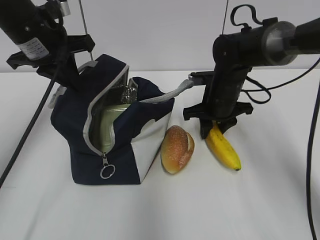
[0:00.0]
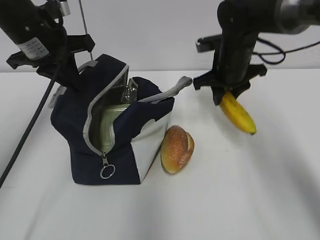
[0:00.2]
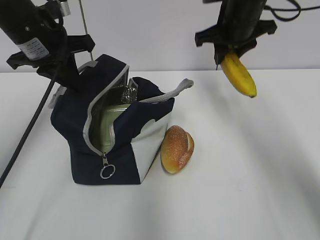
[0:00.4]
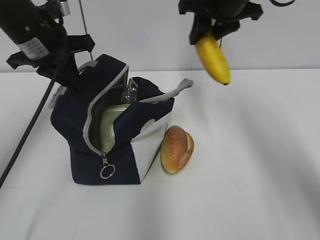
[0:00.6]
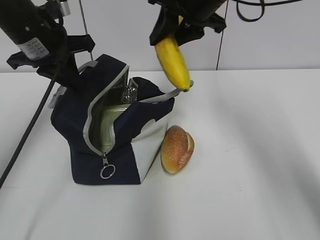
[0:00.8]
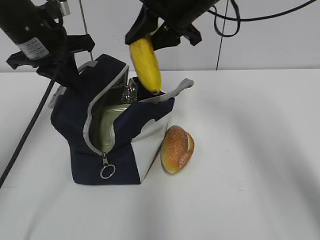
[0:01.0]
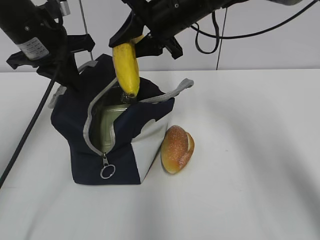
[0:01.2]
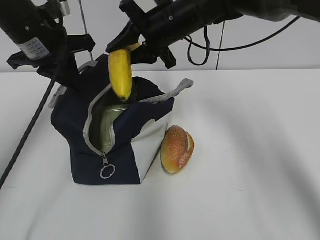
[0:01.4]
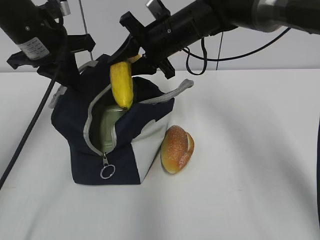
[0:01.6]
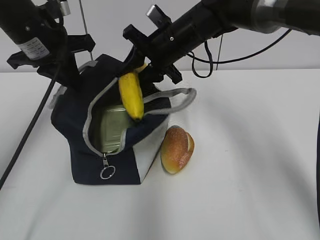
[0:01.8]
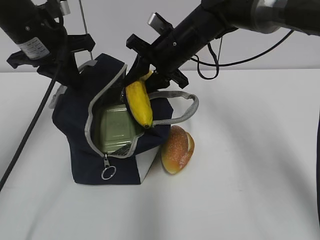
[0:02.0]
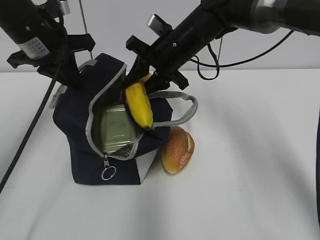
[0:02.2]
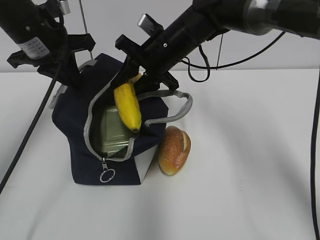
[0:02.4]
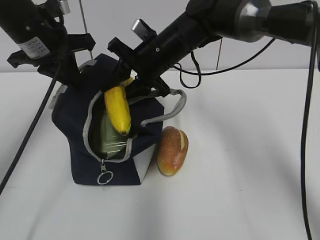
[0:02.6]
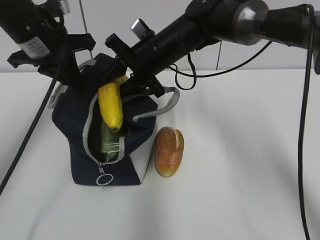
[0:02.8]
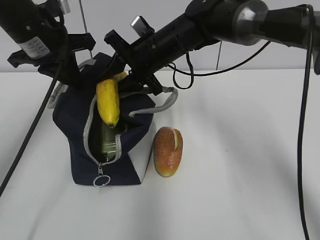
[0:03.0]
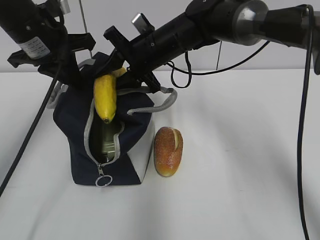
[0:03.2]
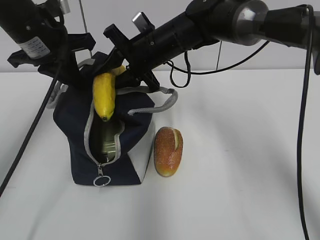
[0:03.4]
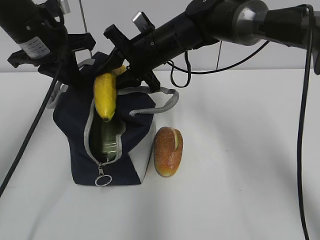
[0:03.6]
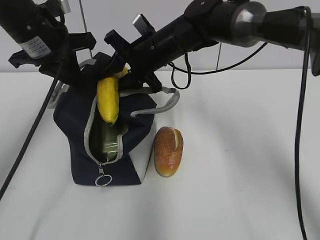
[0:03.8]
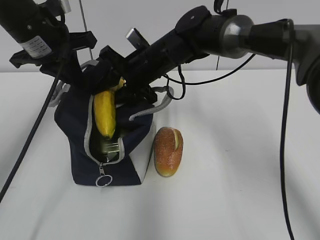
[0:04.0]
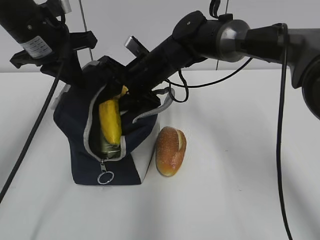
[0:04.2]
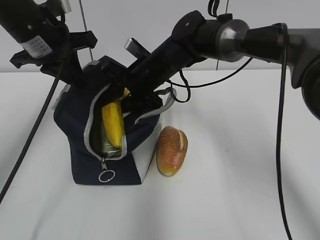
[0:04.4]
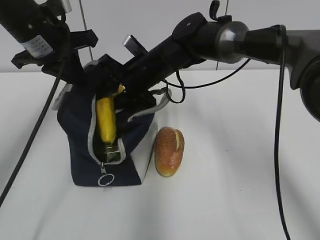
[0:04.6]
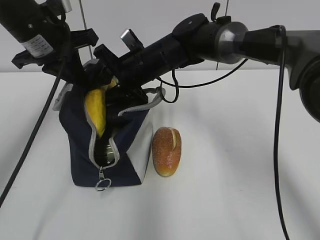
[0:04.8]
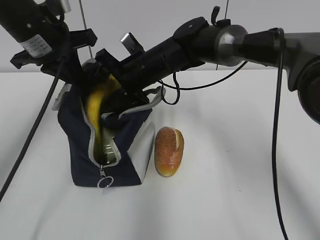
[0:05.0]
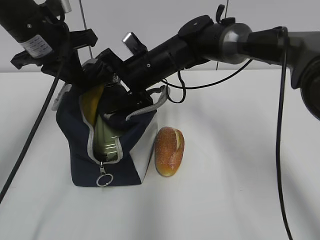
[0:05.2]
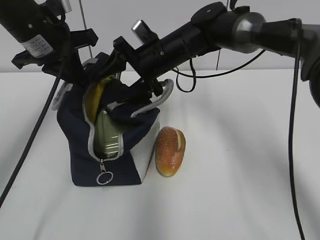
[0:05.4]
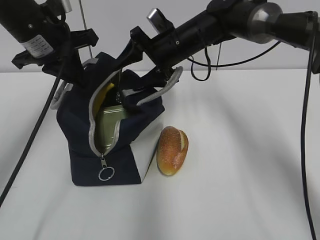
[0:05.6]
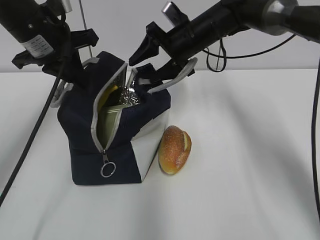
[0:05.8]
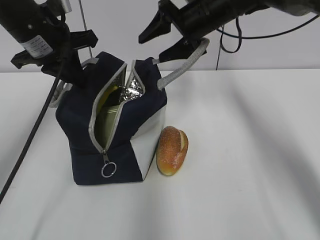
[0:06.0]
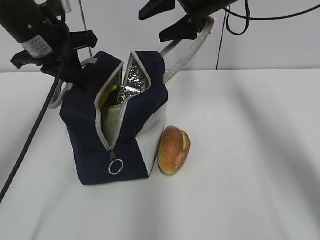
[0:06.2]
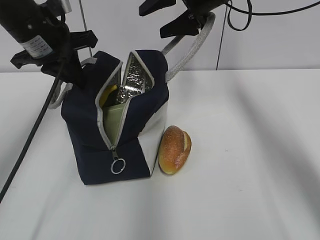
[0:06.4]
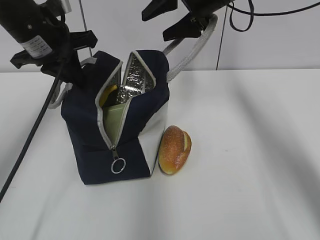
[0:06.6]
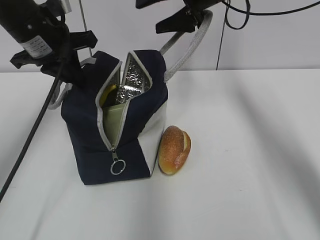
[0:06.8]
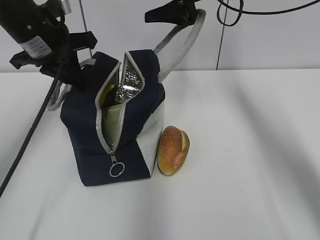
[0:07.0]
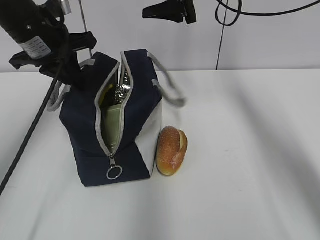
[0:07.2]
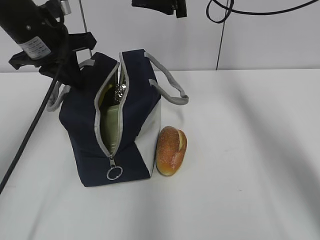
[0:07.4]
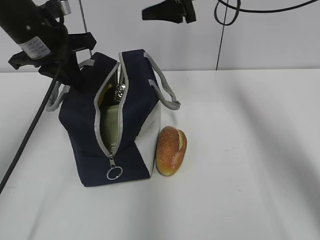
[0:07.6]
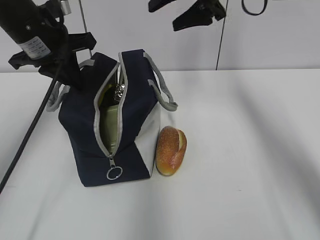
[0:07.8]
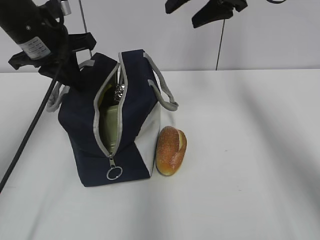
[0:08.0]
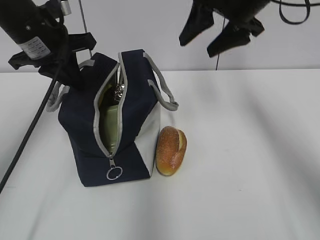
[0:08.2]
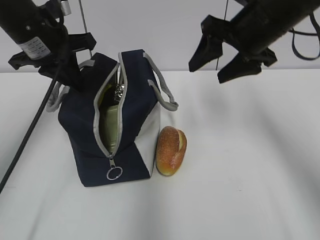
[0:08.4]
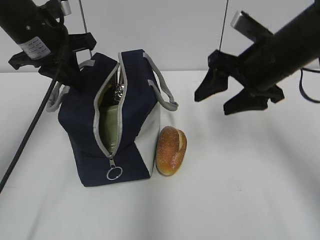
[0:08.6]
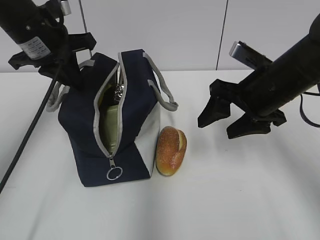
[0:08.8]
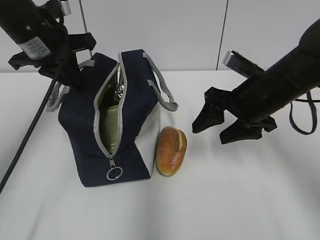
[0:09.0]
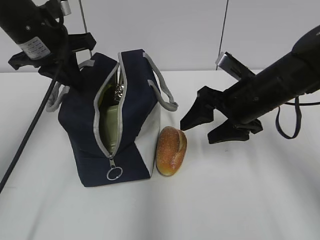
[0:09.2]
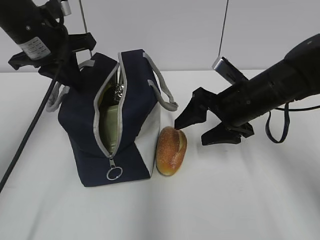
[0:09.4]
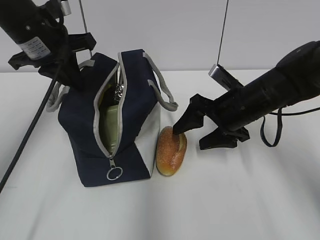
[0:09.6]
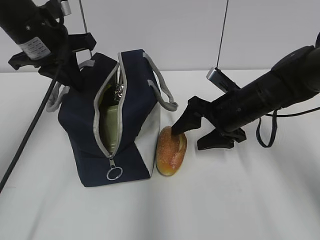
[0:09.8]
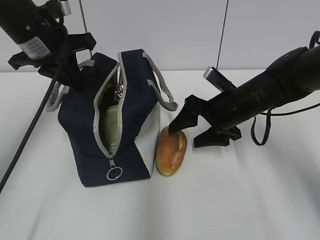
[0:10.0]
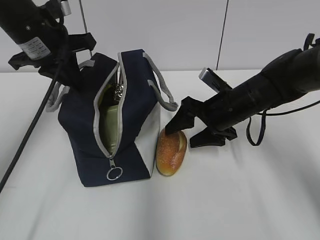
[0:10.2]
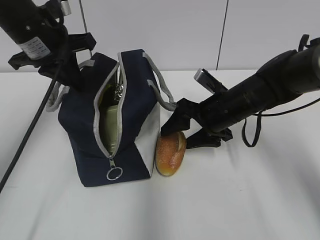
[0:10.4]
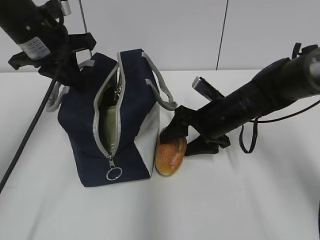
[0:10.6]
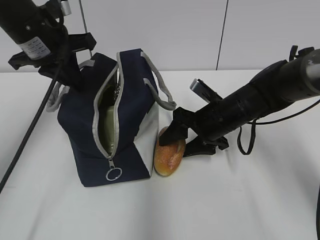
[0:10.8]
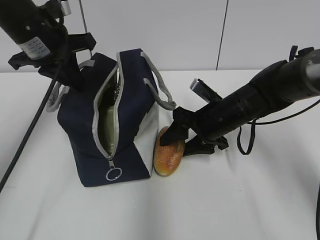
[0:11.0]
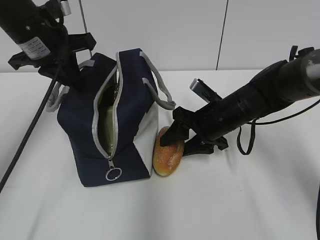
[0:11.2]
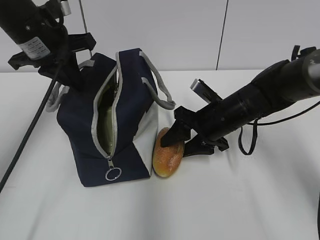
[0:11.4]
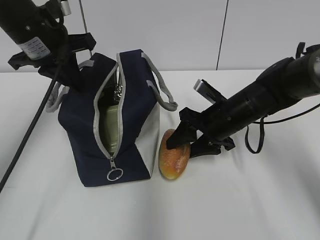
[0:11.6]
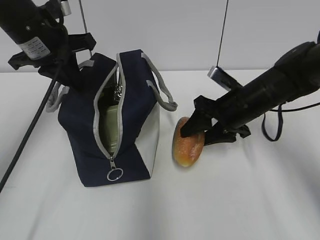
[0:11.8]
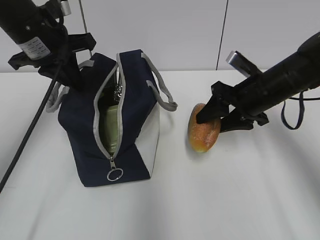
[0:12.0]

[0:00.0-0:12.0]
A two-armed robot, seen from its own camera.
Step, 0:00.0 to 0:05.0: Place it into the bag with your right hand.
Step, 0:05.4 to 0:11.2: Grab the bread with your right hand.
0:00.0 to 0:01.6: The right gripper is displaced upward and to the left by about 15 cm.
0:04.4 to 0:06.0: The right gripper goes approximately 15 cm to the right and upward, and opens.
0:06.0 to 0:07.6: The right gripper heads upward, covering roughly 5 cm.
0:07.6 to 0:09.0: The right gripper shifts roughly 20 cm backward, downward and to the right.
0:09.0 to 0:10.4: The right gripper heads downward, covering about 5 cm.
0:10.4 to 0:12.0: The right gripper shifts approximately 5 cm to the right.

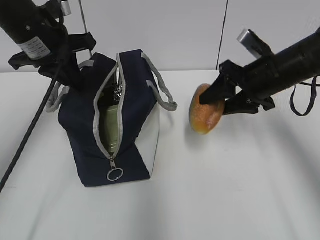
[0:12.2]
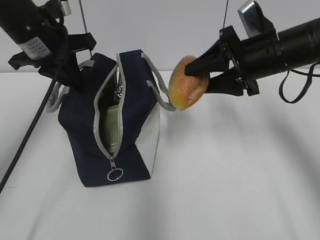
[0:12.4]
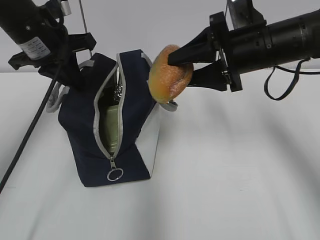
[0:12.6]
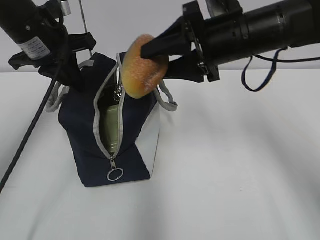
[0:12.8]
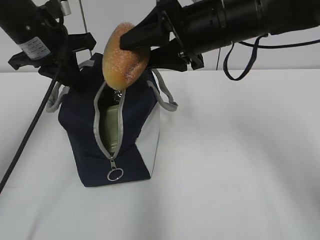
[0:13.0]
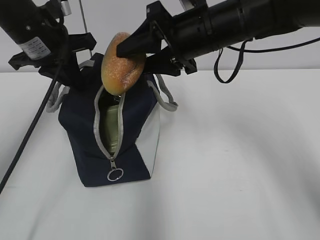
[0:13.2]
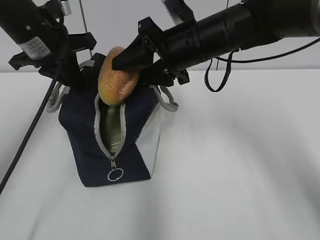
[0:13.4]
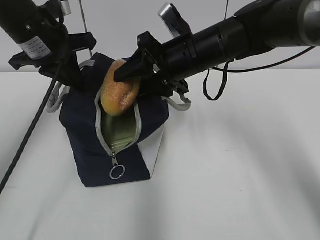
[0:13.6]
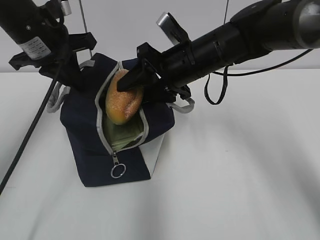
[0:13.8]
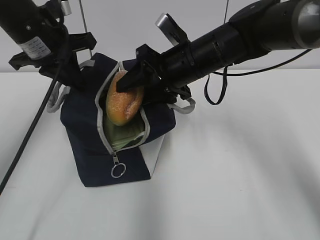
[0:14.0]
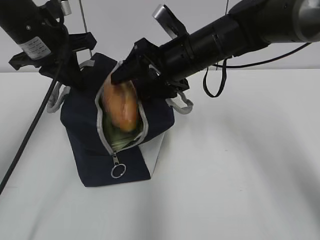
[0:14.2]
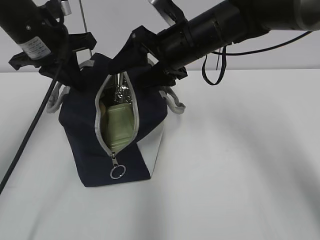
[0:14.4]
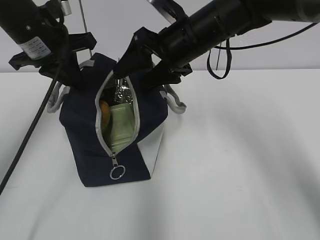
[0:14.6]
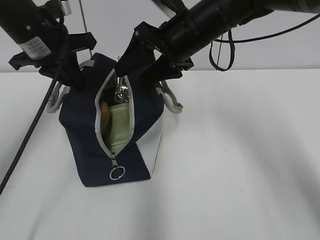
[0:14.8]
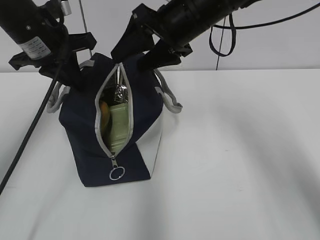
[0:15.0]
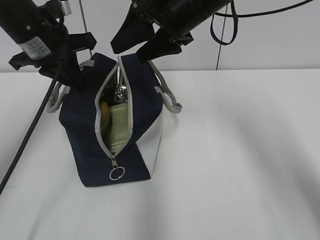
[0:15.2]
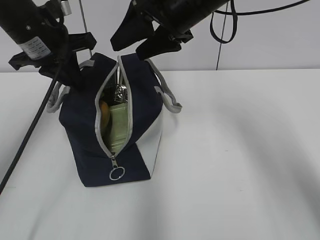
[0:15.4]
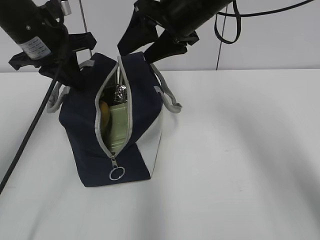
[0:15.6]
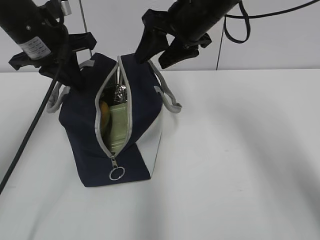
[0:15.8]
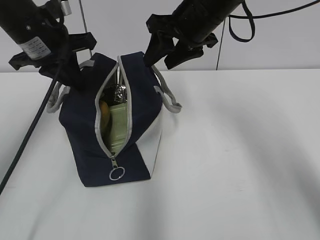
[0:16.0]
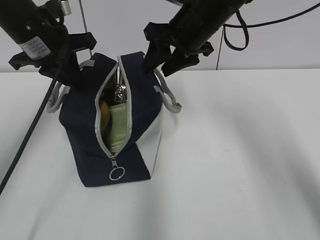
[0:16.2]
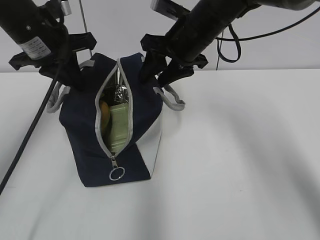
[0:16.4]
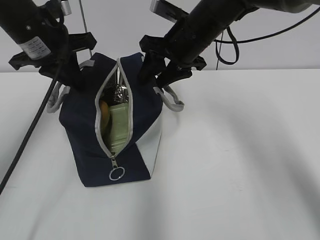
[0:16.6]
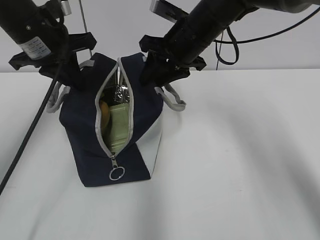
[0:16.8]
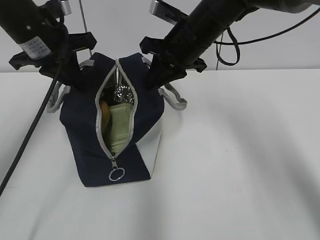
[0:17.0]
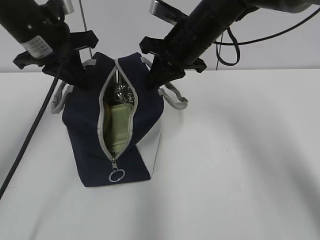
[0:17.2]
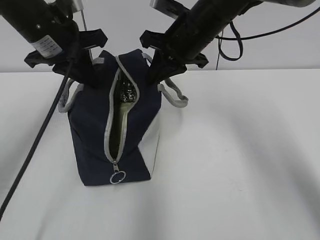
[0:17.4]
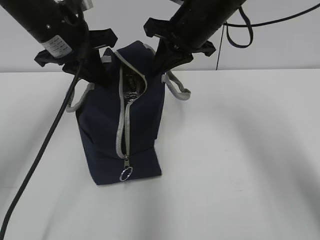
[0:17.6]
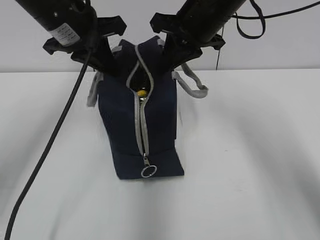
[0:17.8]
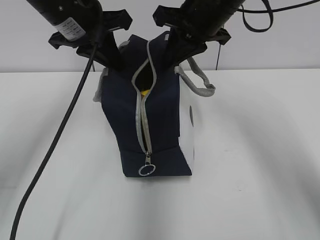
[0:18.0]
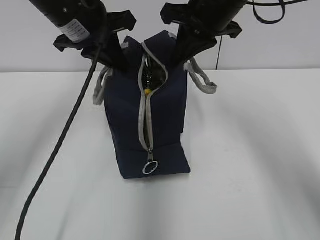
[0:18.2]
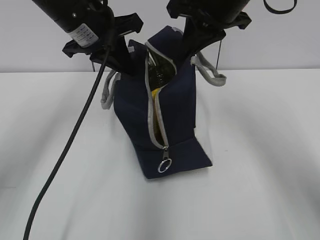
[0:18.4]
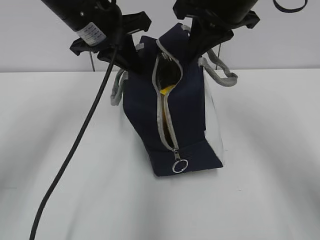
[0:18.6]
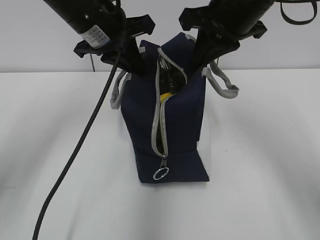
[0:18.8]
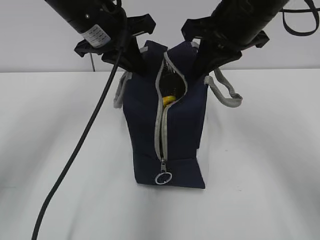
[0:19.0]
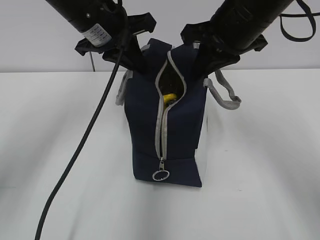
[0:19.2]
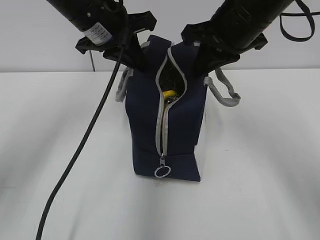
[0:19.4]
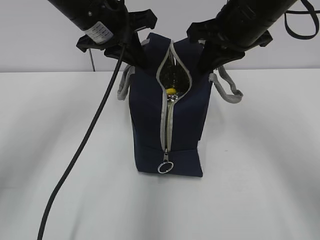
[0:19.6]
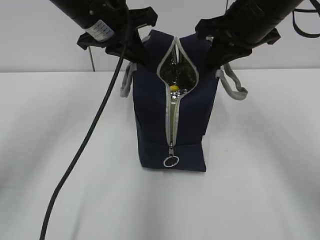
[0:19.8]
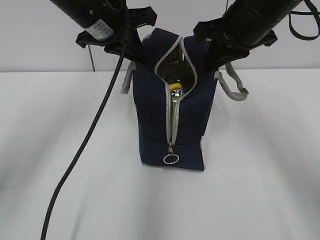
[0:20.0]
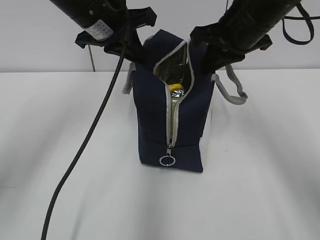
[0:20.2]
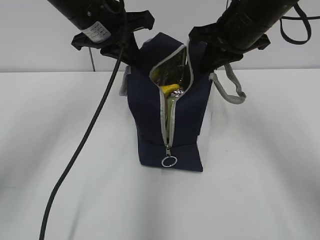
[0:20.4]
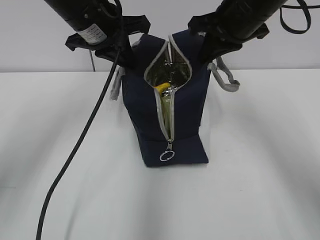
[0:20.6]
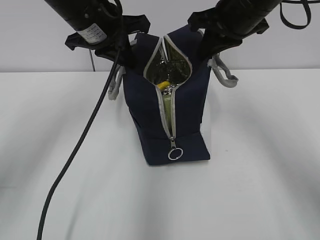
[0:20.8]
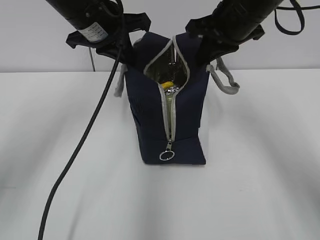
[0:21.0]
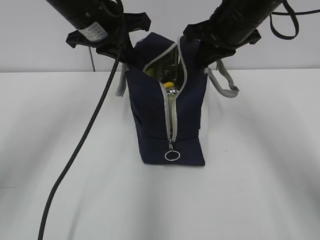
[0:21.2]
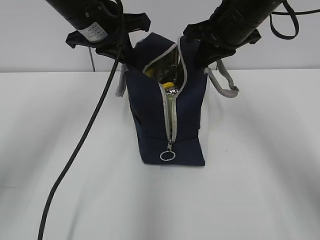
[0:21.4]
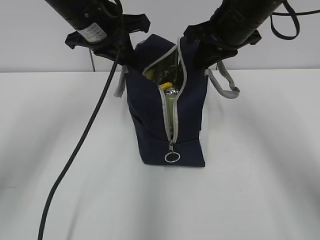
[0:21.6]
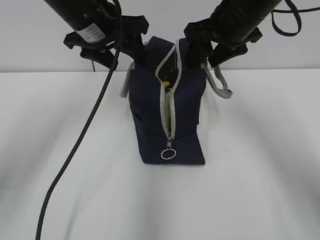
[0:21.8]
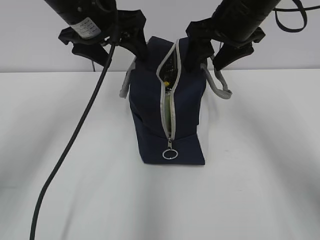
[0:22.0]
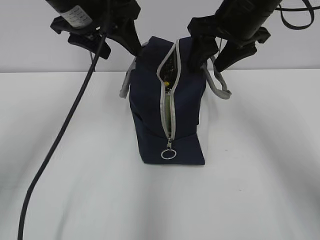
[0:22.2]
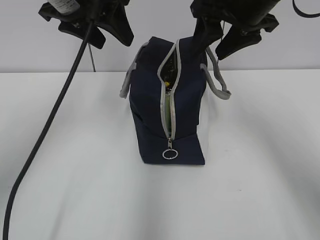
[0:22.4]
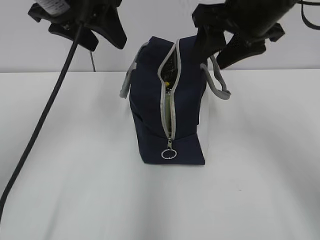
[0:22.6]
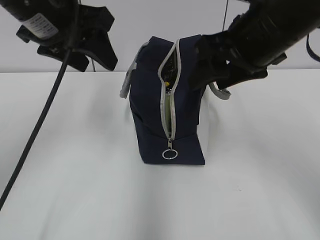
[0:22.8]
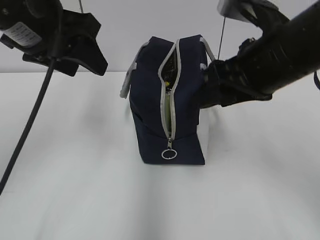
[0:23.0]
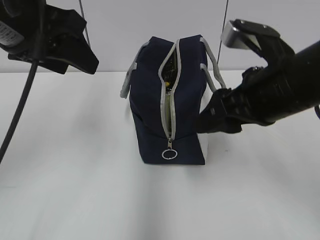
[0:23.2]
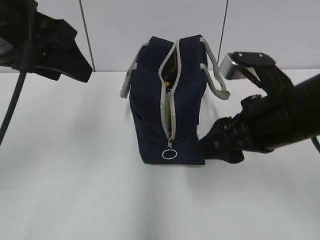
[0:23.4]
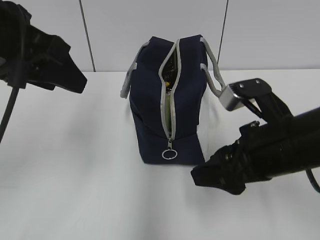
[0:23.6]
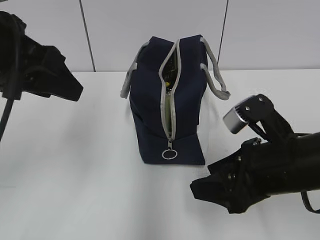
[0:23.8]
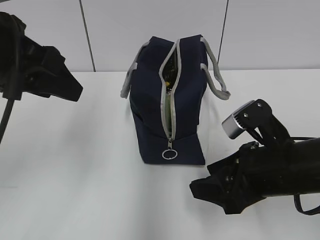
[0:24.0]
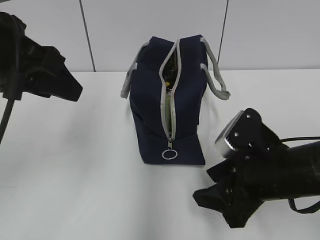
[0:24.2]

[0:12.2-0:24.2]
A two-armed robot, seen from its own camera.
Step, 0:14.4 to 0:17.2: Grab the lunch bag with your right hand.
Step, 0:17.4 to 0:21.6: Move the lunch bag to the right.
0:12.2 to 0:13.8: The right gripper goes roughly 15 cm to the left.
0:13.8 to 0:15.2: The right gripper travels upward by roughly 10 cm.
0:15.2 to 0:16.6: The right gripper travels downward by some 5 cm.
0:16.6 to 0:18.2: The right gripper goes roughly 5 cm upward, and closes its fingers. The left gripper moves to the right, some 5 cm.
0:19.8 to 0:21.2: The grippers stay close to where they were, moving slightly.
0:21.2 to 0:22.6: The left gripper heads upward and backward, covering about 10 cm, and opens up. Meanwhile the right gripper heads backward, covering approximately 5 cm, and opens.
0:22.6 to 0:24.2: The left gripper is displaced backward by roughly 10 cm; the right gripper travels downward and backward by roughly 20 cm.
